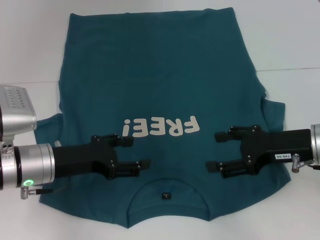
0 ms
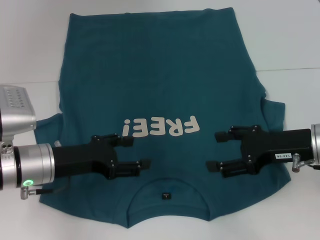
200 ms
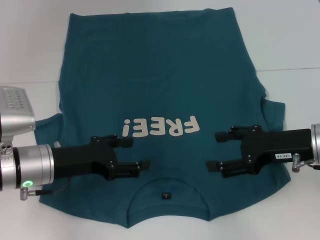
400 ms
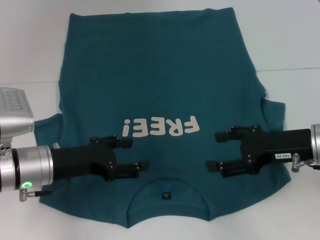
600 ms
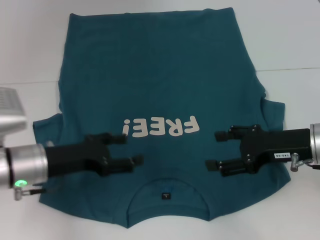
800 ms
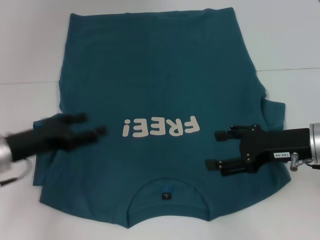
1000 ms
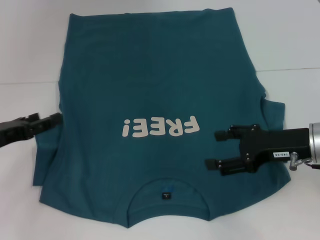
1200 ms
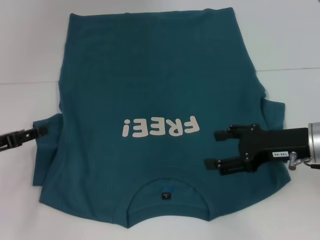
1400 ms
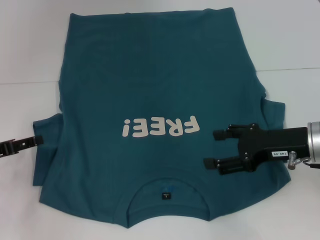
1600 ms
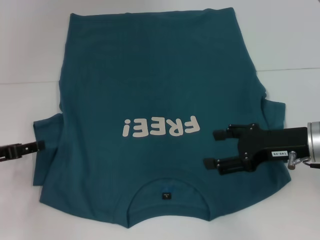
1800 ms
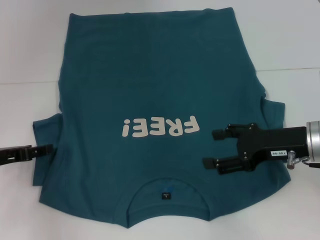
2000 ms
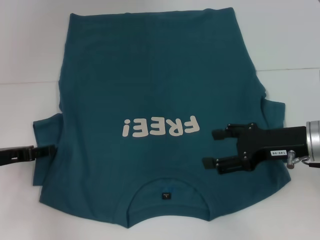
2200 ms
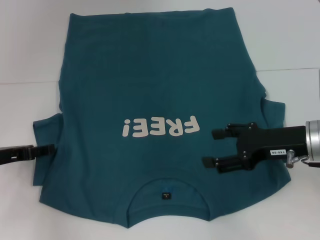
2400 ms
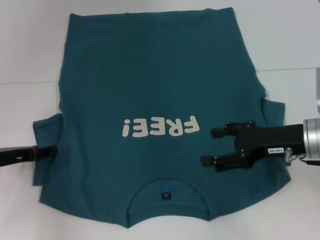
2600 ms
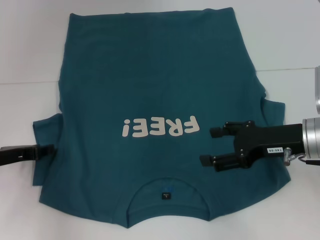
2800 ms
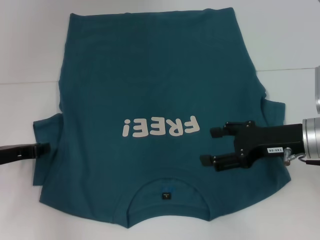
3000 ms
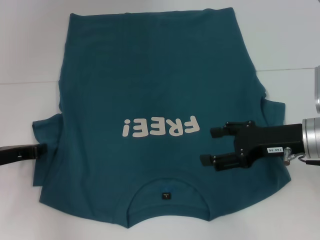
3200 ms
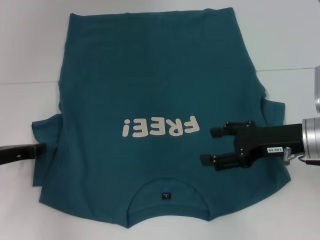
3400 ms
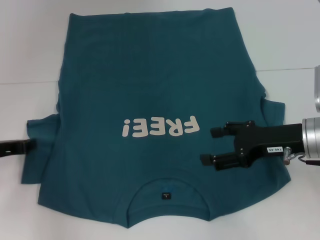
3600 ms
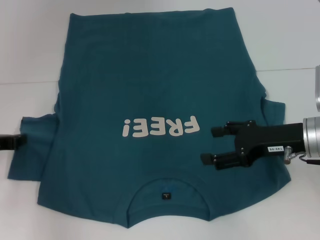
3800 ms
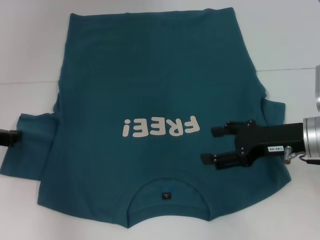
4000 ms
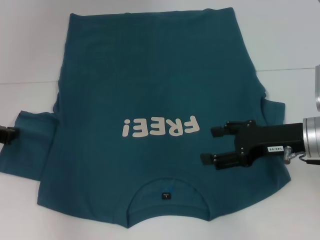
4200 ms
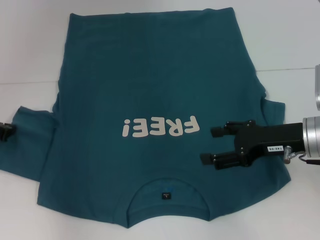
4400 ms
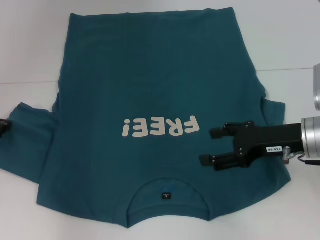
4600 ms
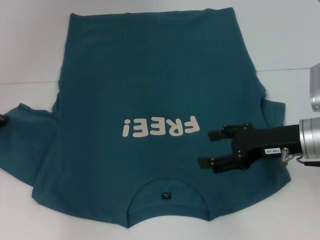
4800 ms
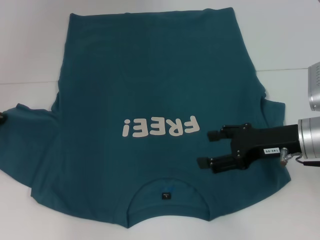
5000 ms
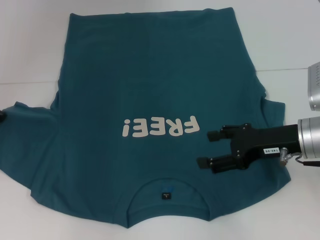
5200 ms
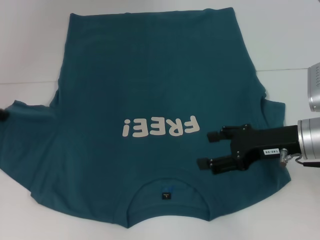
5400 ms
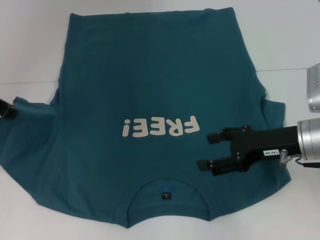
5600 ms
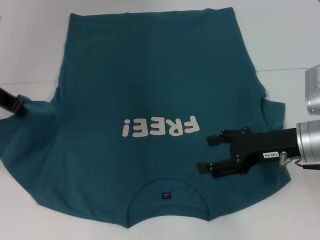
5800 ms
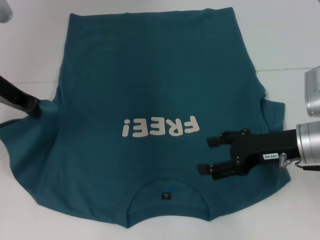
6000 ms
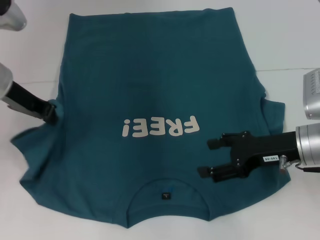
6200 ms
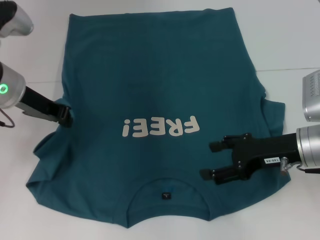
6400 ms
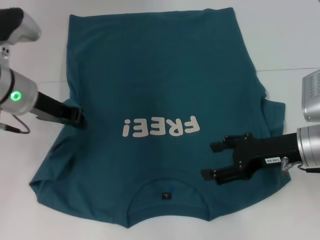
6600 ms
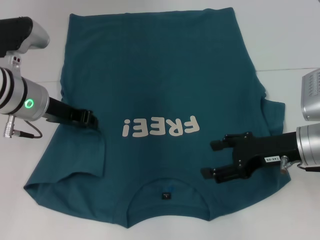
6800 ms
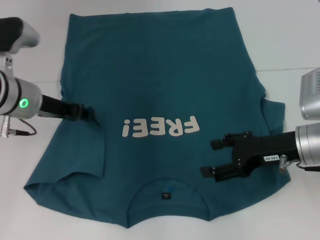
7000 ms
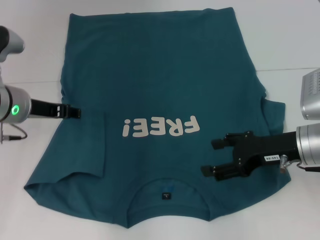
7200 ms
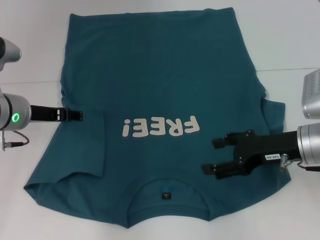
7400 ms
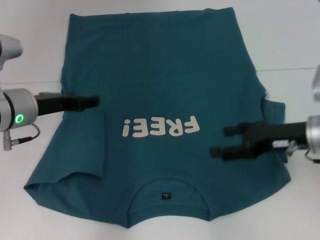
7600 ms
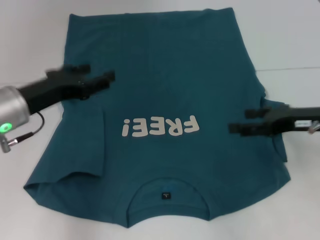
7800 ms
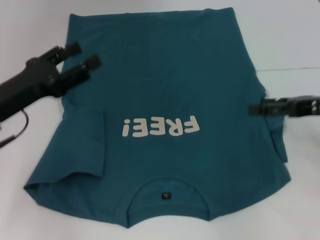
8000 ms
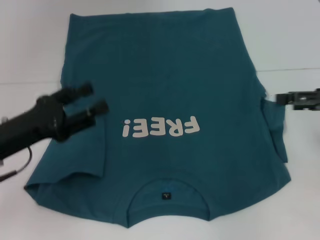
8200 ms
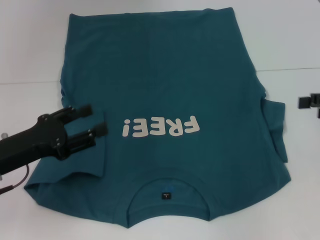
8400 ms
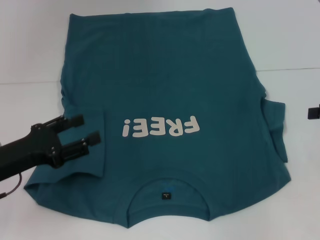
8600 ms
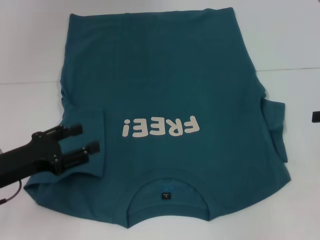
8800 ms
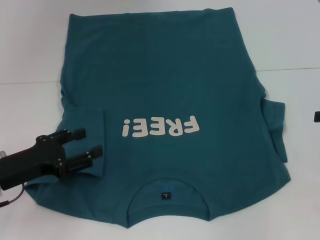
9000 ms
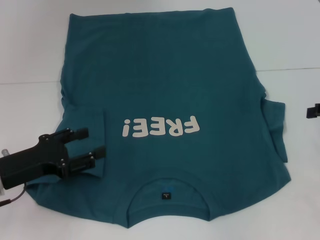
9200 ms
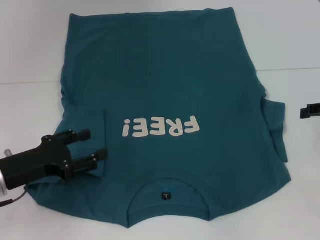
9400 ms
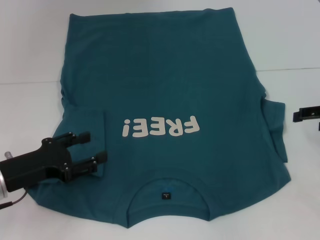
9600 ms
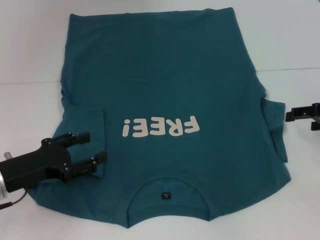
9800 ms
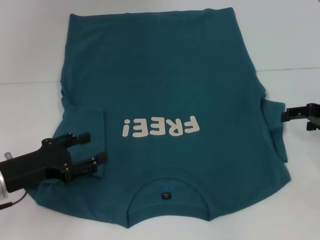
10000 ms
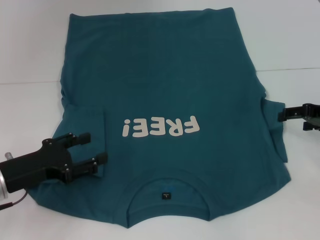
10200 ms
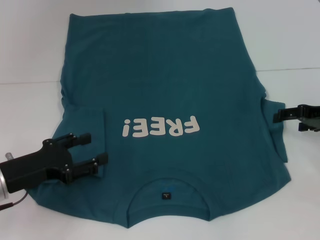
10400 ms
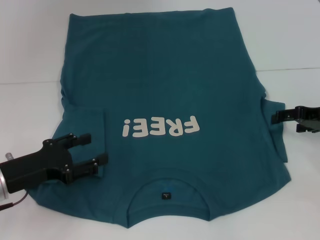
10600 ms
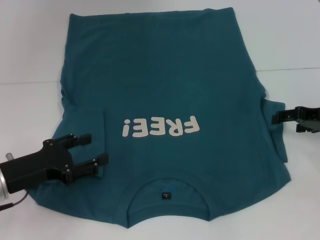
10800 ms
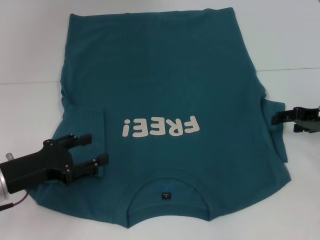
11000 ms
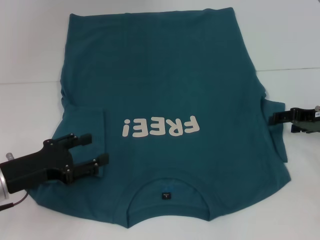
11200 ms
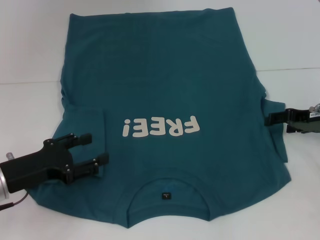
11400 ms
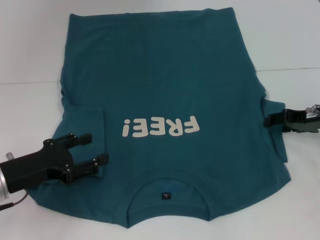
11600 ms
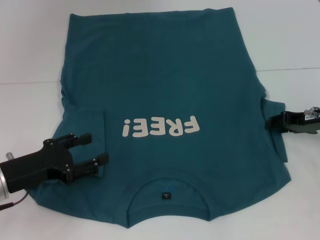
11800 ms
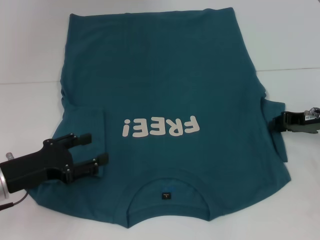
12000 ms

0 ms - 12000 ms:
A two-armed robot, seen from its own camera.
Step, 0 ms - 7200 ms: Fold the bottom left sleeve with your left hand.
0 ms - 1600 ms: The left gripper shifts roughly 15 cm to the left.
1600 ms - 3000 ms: The left gripper closes up.
3000 ms - 4400 ms: The left gripper goes some 5 cm upward, and closes.
4400 ms - 6000 ms: The left gripper is displaced upward and to the right by about 15 cm.
6000 ms - 7600 ms: The left gripper shifts approximately 5 cm downward, and opens up.
7600 ms - 9000 ms: The right gripper goes some 15 cm to the right, while the left gripper moves backward, downward and to the left, about 10 cm.
9000 ms - 10400 ms: The right gripper heads forward and to the left, covering about 10 cm.
10400 ms - 12000 ms: The right gripper closes.

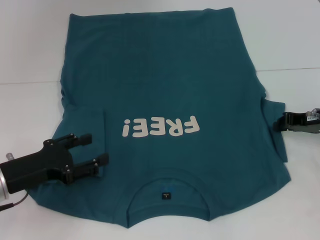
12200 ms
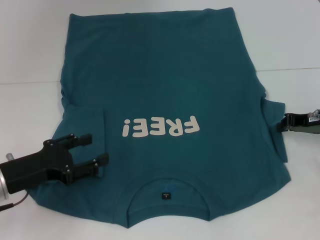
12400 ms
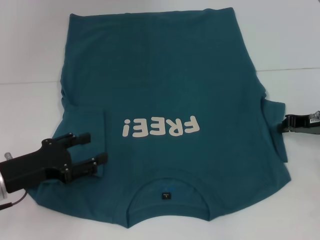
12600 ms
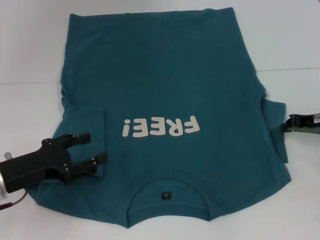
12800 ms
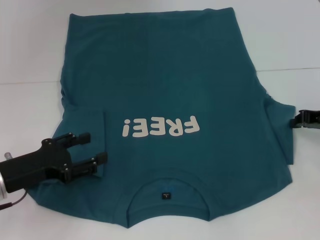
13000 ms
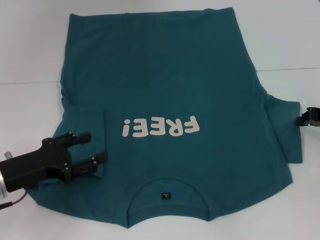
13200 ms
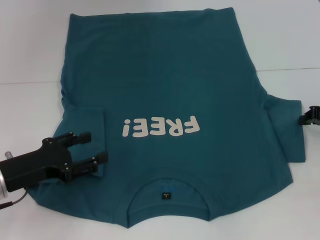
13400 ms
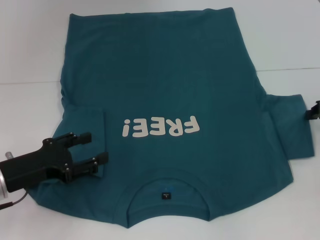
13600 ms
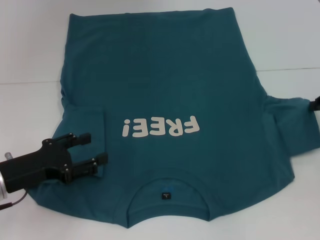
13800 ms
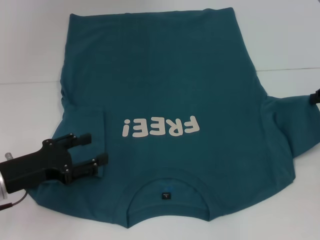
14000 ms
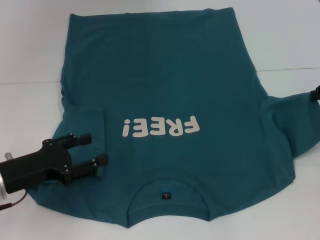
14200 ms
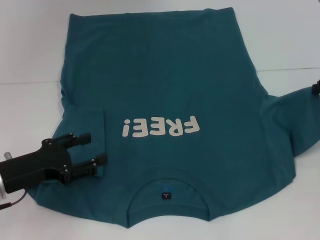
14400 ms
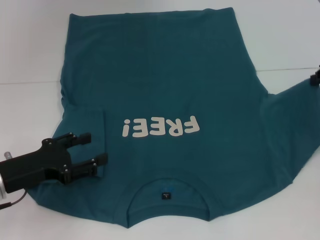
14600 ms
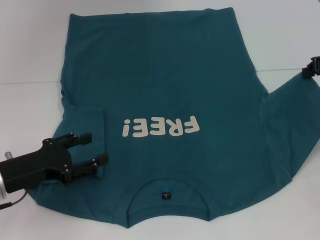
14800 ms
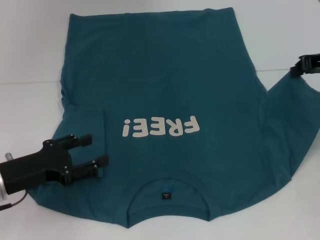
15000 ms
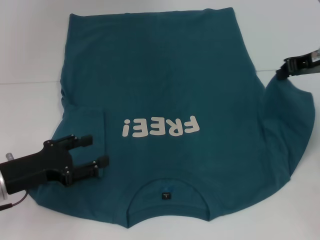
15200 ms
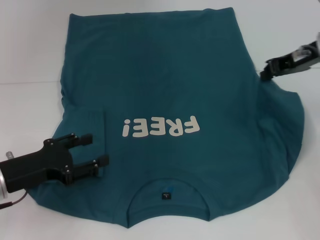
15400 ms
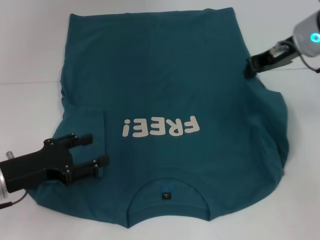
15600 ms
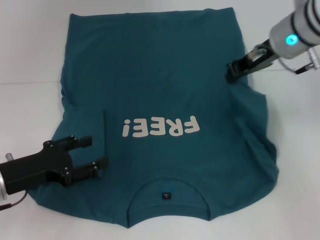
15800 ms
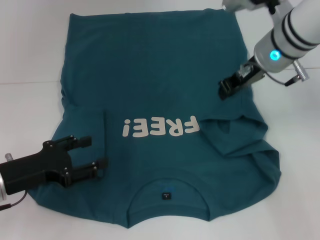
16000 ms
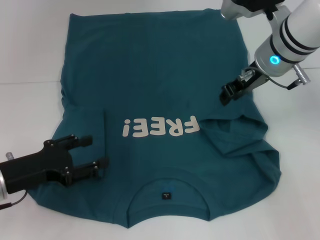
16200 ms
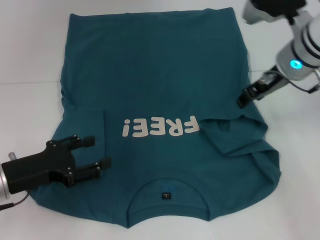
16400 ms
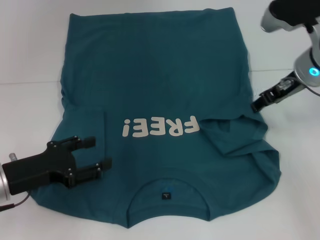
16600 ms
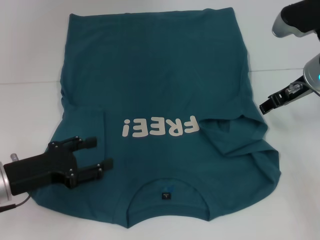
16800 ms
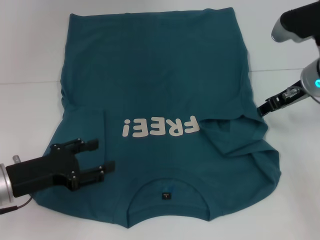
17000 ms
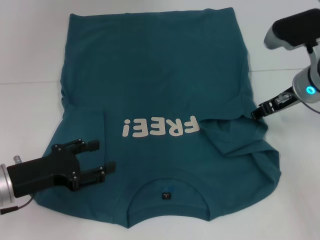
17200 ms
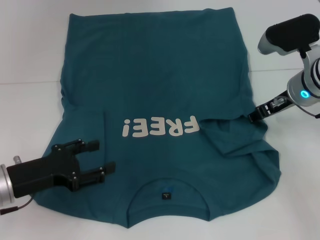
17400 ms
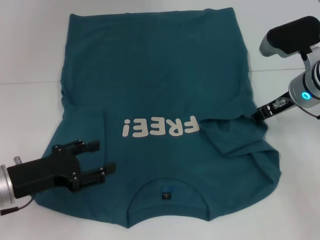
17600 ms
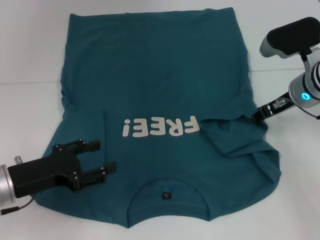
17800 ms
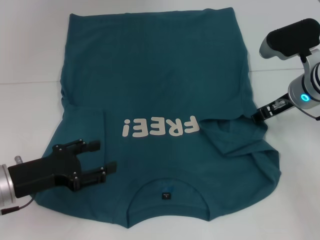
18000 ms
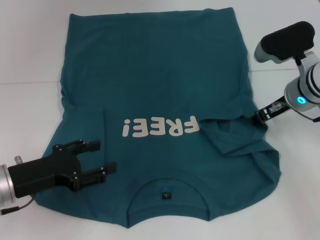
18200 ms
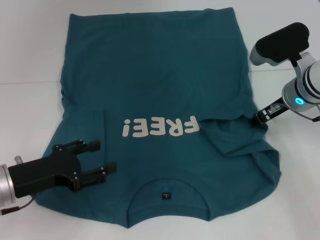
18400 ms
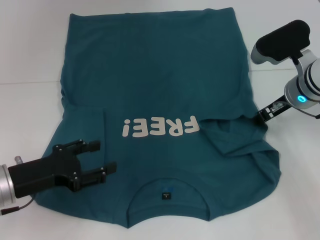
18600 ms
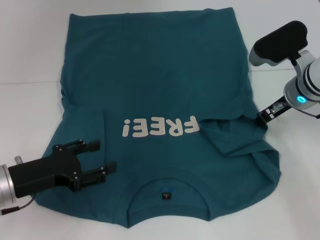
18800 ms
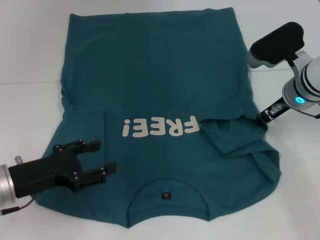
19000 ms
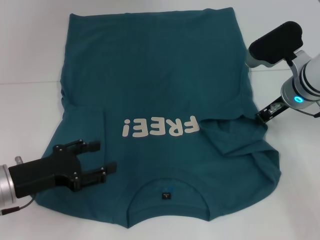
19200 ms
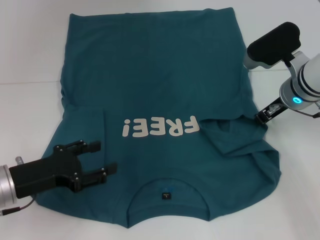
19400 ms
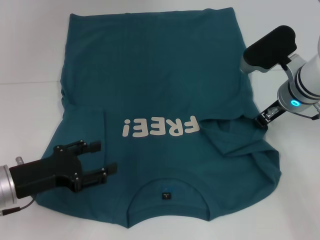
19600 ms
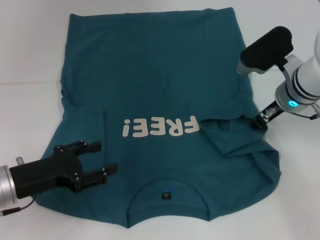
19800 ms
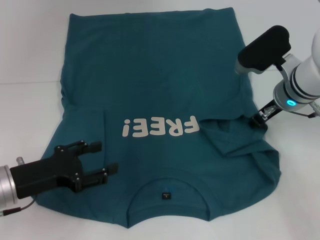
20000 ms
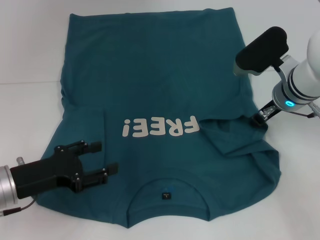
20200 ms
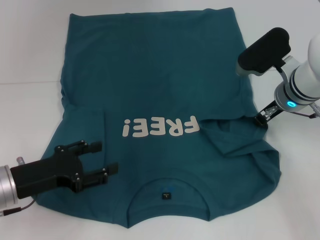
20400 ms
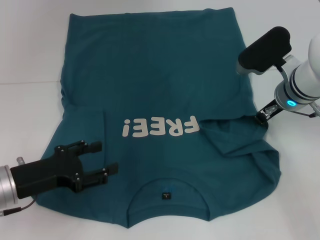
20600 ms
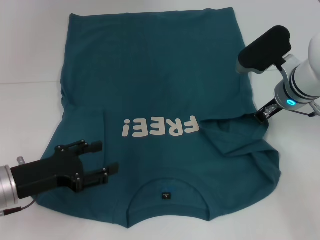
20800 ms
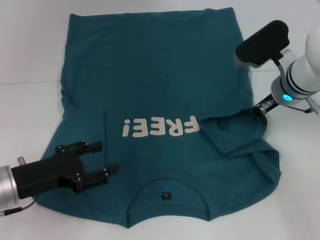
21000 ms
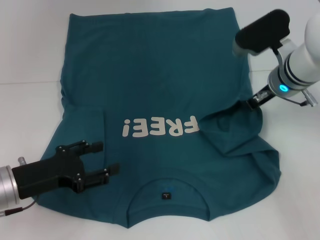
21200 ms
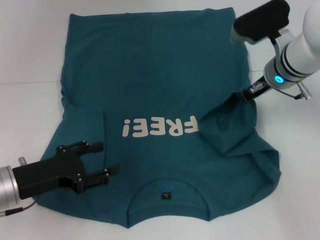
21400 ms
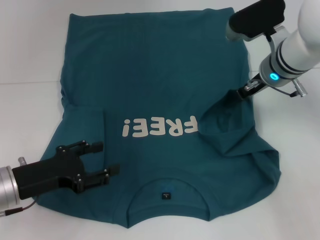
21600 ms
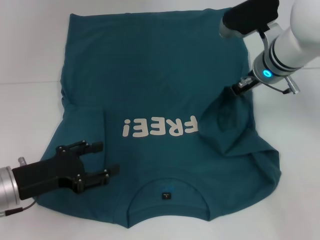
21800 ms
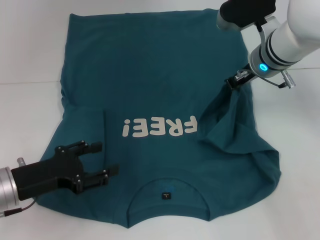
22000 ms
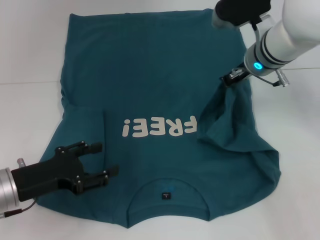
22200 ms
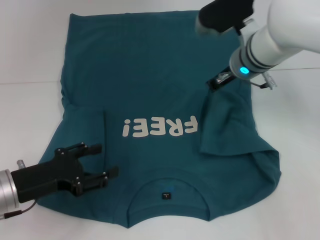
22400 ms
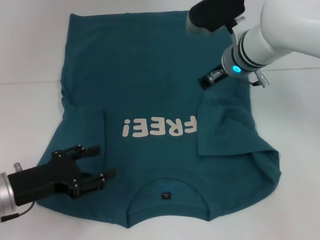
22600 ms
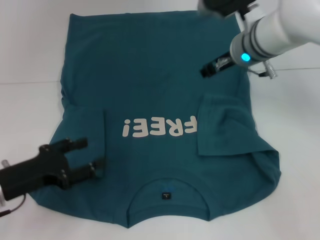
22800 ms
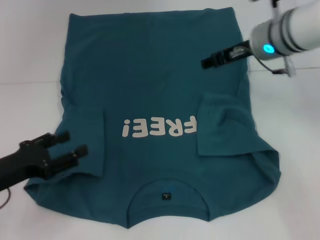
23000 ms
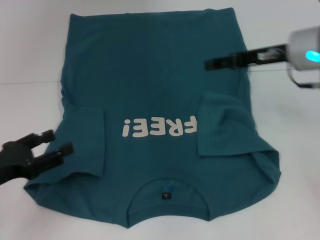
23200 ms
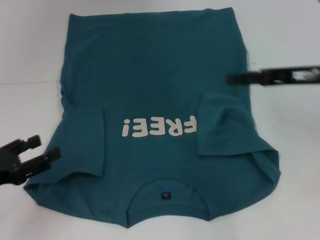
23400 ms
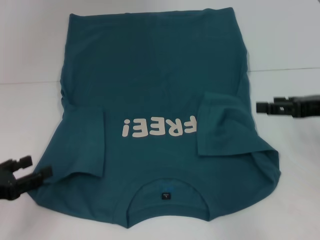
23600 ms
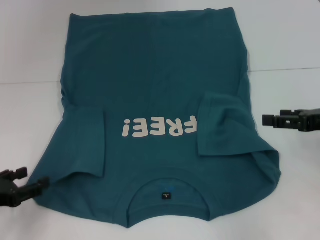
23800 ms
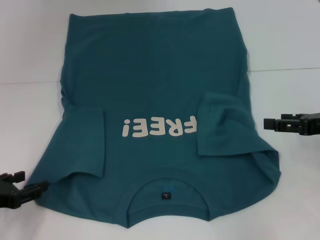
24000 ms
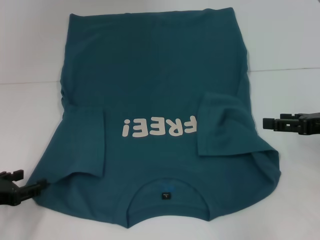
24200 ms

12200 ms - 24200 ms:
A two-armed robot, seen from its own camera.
Step, 12200 ms - 22600 ms: Fold the bottom right sleeve to the right.
12200 ms - 13800 ms: The right gripper goes about 5 cm to the right.
13800 ms - 15200 ms: The right gripper shifts approximately 10 cm upward and to the left.
15200 ms - 16600 ms: The right gripper shifts approximately 5 cm to the left, and opens its fingers.
16600 ms - 18200 ms: The right gripper moves downward, some 5 cm.
18200 ms - 19800 ms: The grippers move only a little.
19800 ms - 21200 ms: The right gripper closes.
21200 ms - 22600 ms: The right gripper is displaced to the left by some 5 cm.
22600 ms - 24200 ms: The left gripper travels to the left by approximately 5 cm. The right gripper is displaced to the right and backward by roughly 25 cm, and opens.
